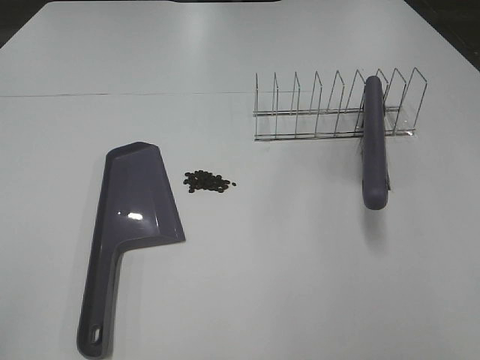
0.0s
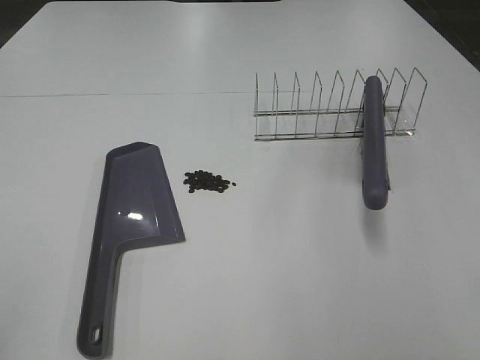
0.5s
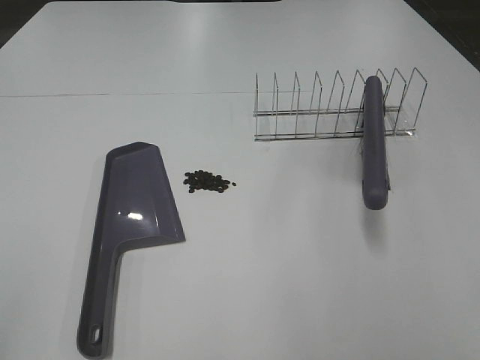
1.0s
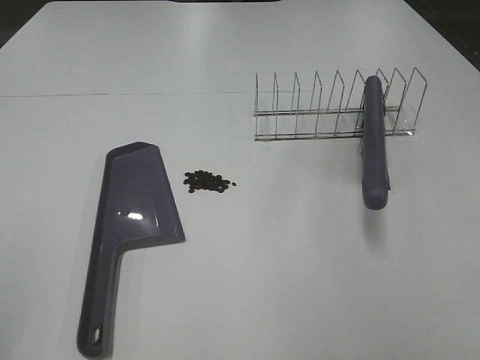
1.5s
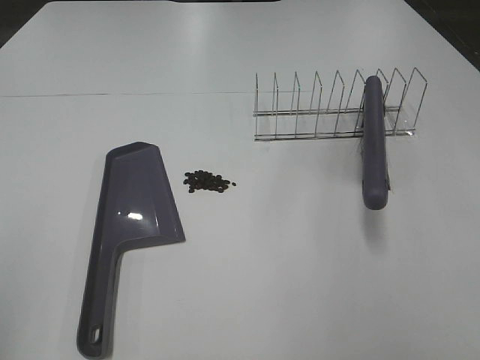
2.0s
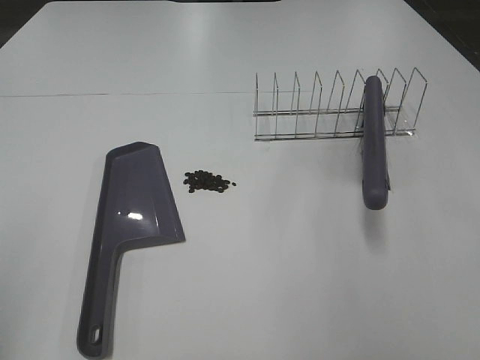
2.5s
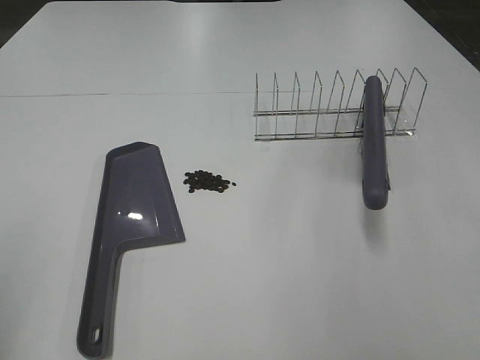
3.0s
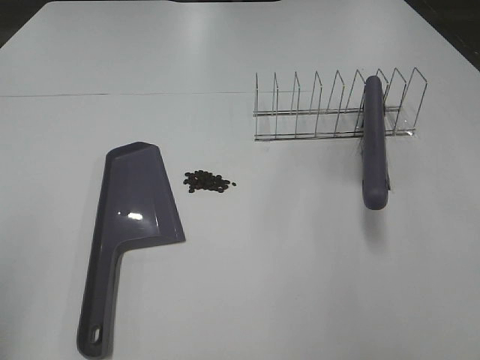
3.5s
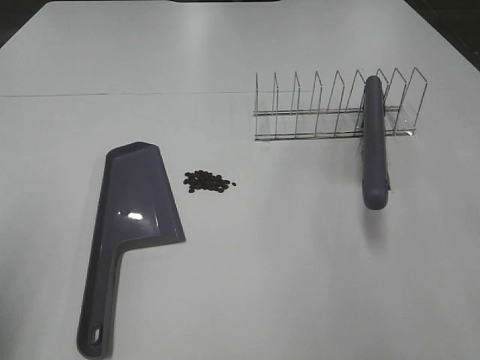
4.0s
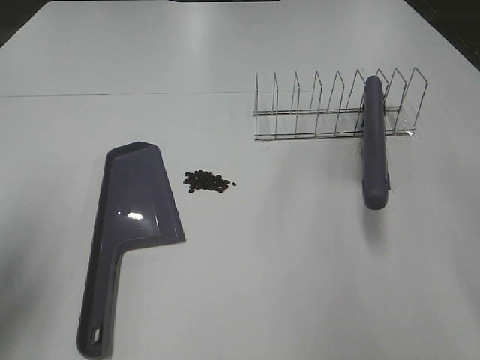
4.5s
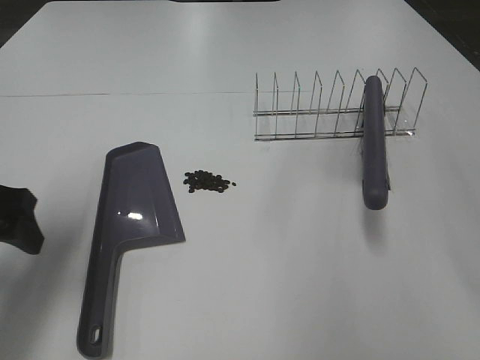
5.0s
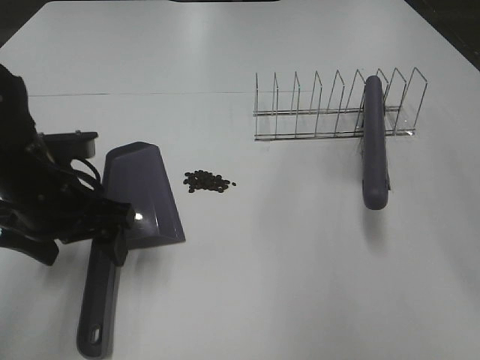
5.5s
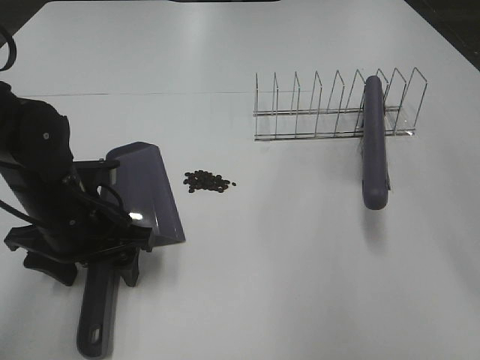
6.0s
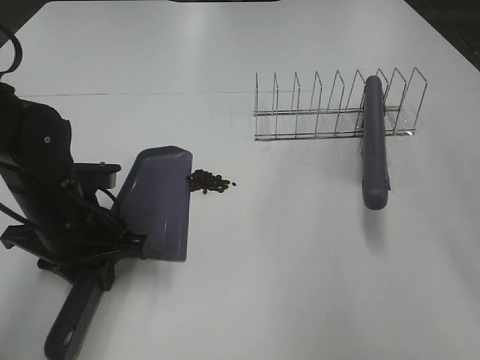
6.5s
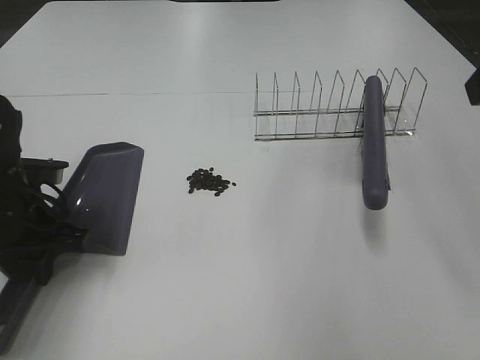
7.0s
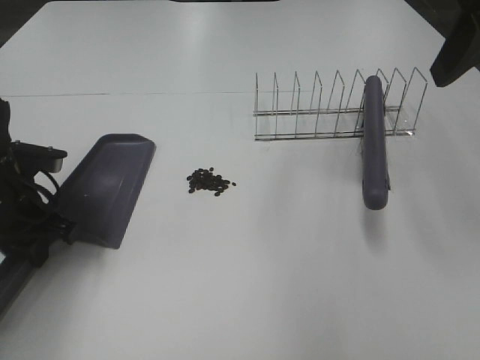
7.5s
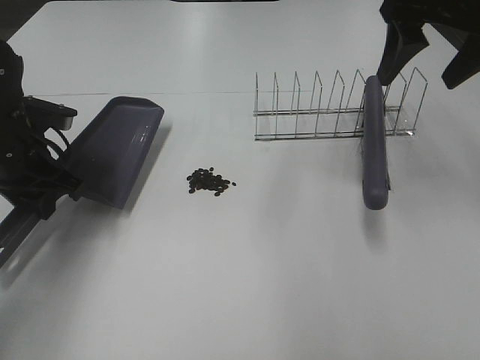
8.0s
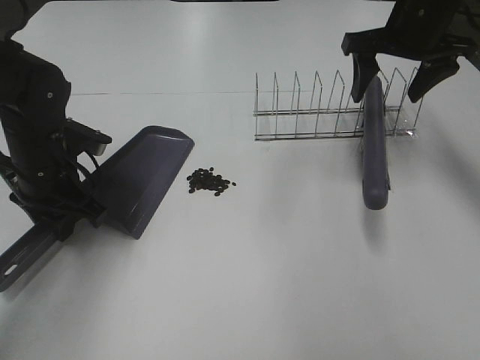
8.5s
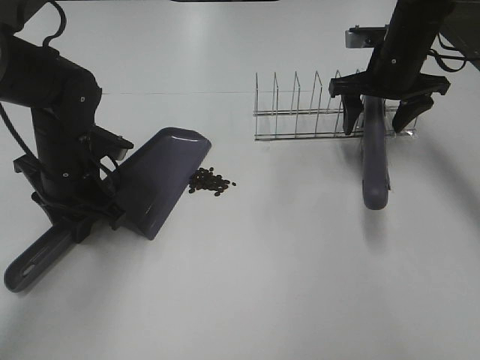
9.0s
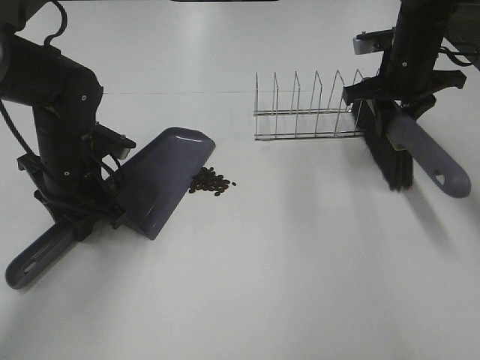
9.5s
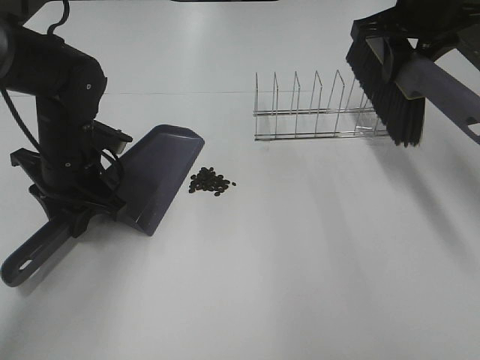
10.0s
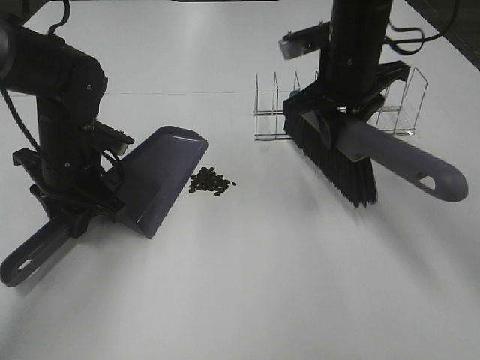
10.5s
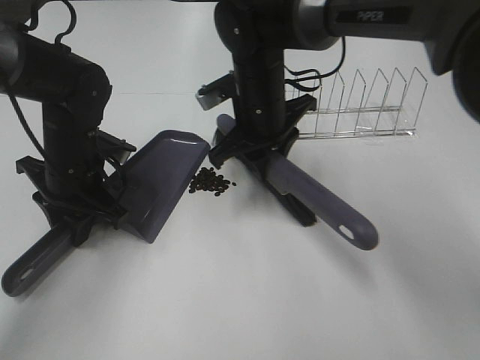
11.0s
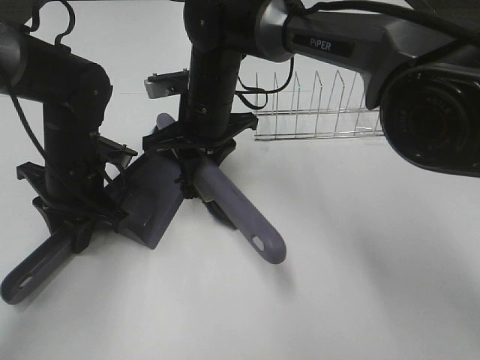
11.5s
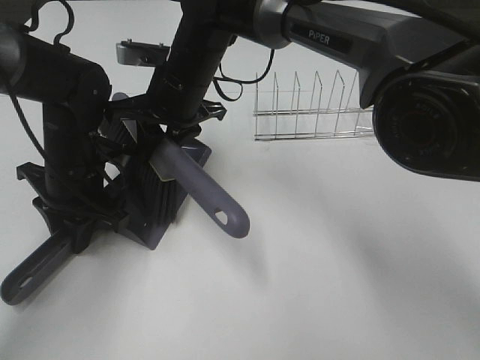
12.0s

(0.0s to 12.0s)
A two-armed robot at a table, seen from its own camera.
Task of the whole recording: Sweep Coffee Bean.
Step, 0.0s - 6.5s: Left hand: grab the dustpan.
Step, 3.5s - 9.0s: Right hand:grab the broom.
Step, 7.0s - 9.0s: Left hand: move the dustpan to the left side of the coffee beans.
Step, 9.5s - 12.0s: Right hand:sweep the coffee beans into the dustpan.
4.0s - 6.0s: The left gripper shifts approximately 25 cm to the right, downward and forward.
6.0s - 8.0s: The right gripper heads forward, covering approximately 15 cm; the left gripper goes approximately 10 cm forward and to the left, and closes its fingers.
8.0s - 10.0s: The left gripper travels to the right by some 5 cm. Meanwhile the right gripper is displaced forward by approximately 5 cm, reaches about 15 cm downward, then returns, and closes its fingers.
10.0s - 12.0s: The right gripper goes some 25 cm to the left.

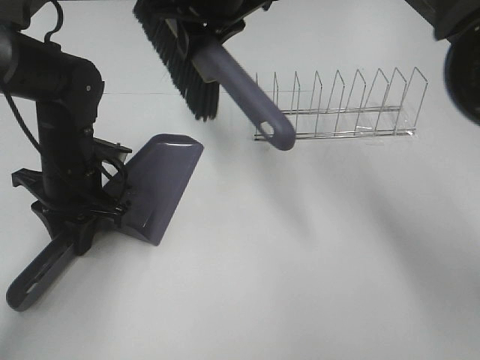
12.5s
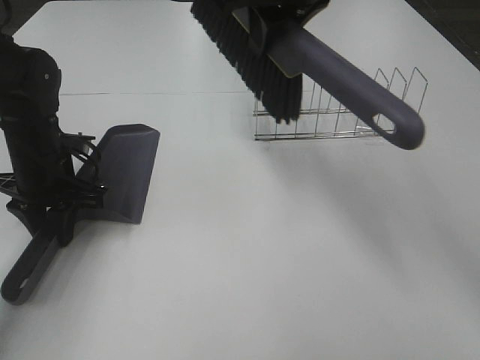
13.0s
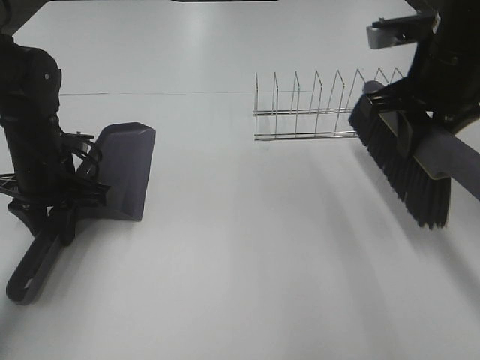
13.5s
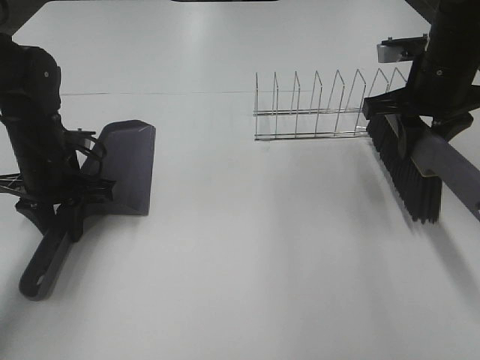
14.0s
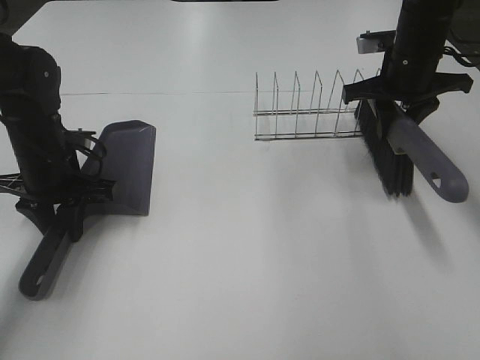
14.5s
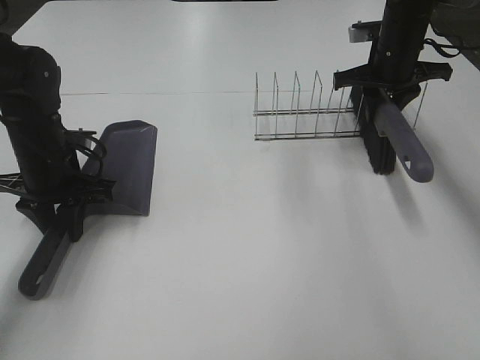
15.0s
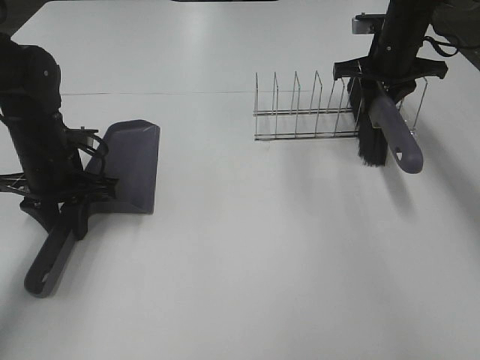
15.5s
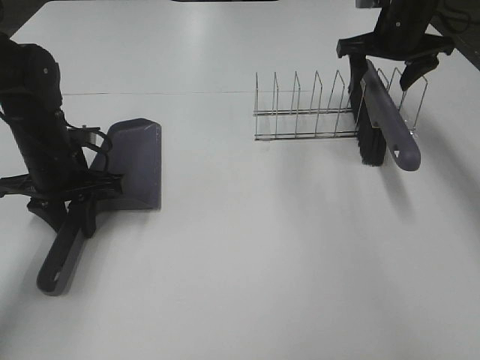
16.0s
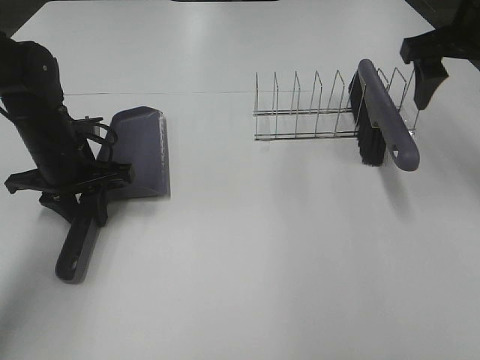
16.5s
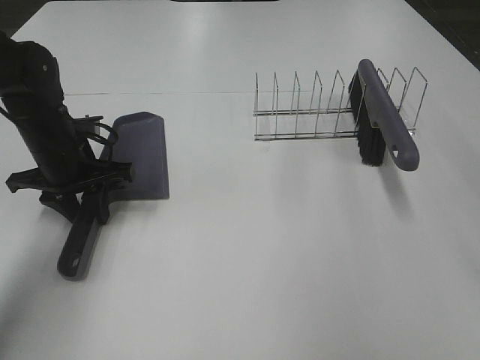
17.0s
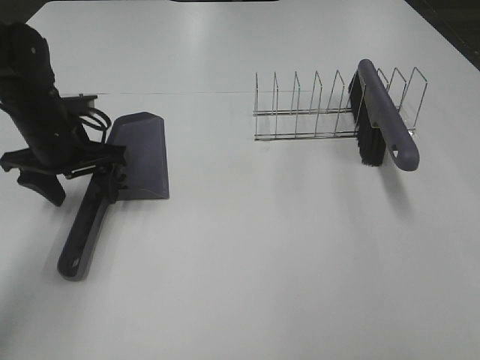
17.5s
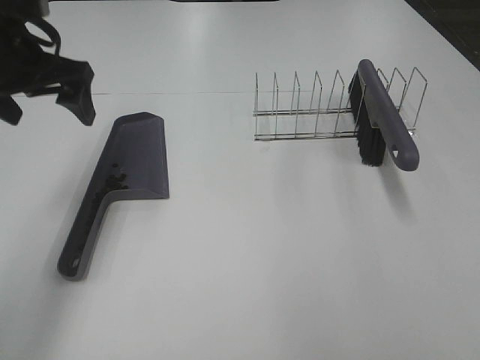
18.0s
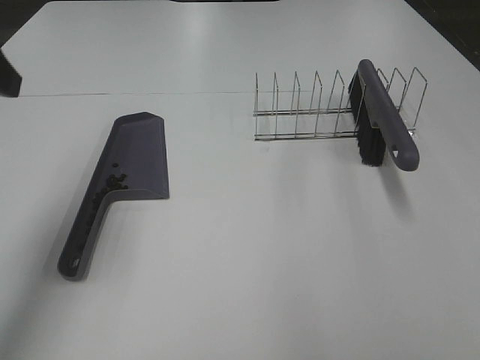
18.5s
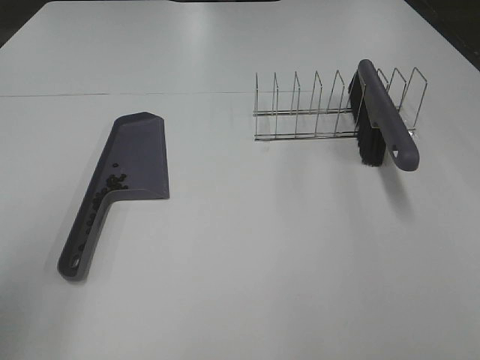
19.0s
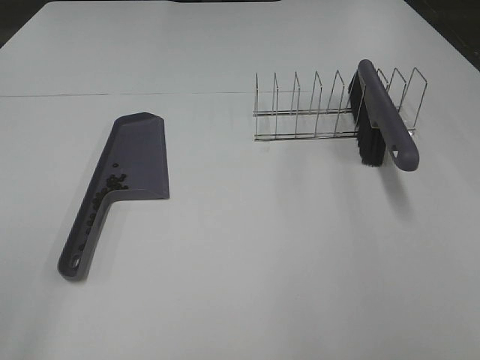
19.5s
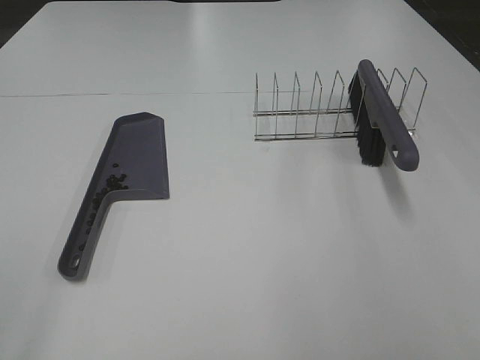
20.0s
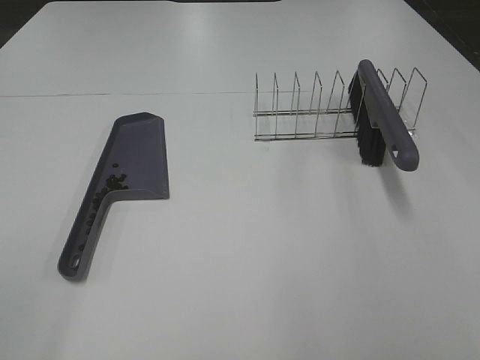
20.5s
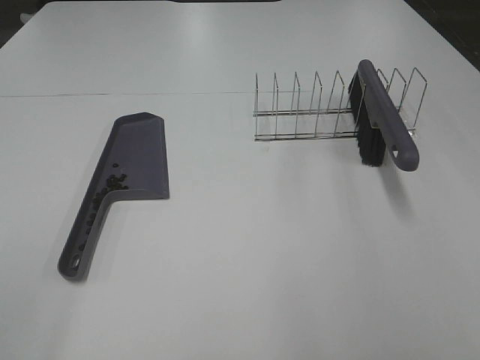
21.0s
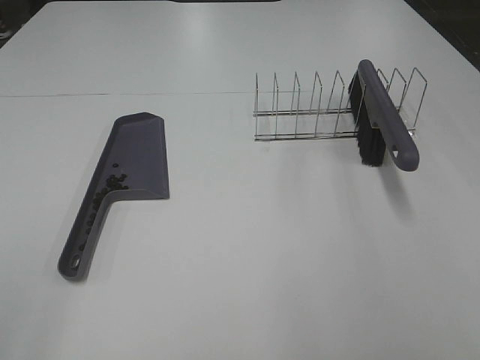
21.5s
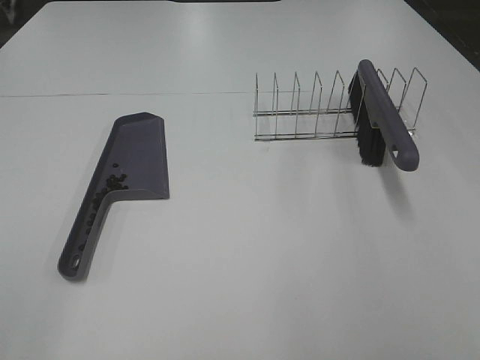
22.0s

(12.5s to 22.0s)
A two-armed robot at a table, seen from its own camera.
Task of the whole recording: Sweep Coffee Bean.
Step, 12.5s - 15.5s: Right hand:place the broom on the rack.
12.5s - 14.5s: The right gripper travels to the right and downward by approximately 25 cm.
14.5s - 16.5s: The right gripper travels upward and backward by roughly 10 cm, and opens up.
16.5s - 18.0s: The right gripper moves backward, about 35 cm; the left gripper travels upward by approximately 15 cm, and opens up.
18.0s - 20.0s: The left gripper travels backward by approximately 35 cm.

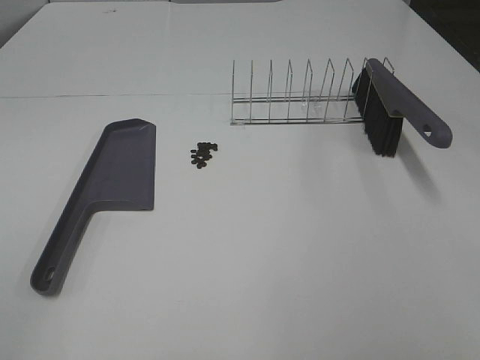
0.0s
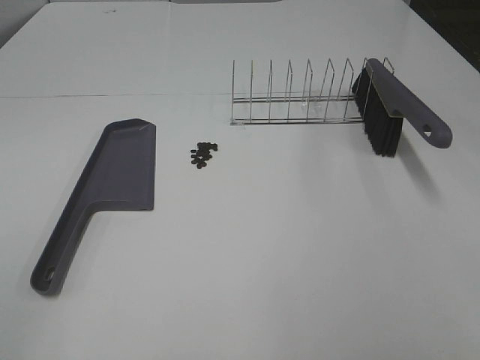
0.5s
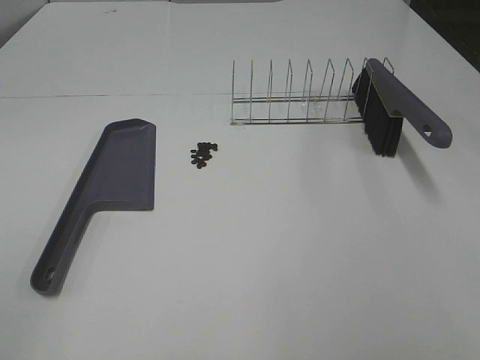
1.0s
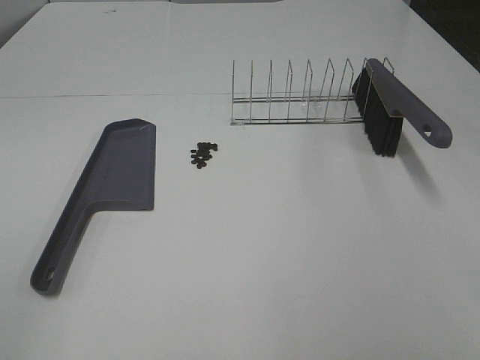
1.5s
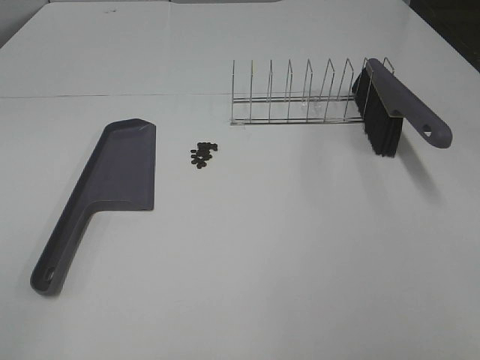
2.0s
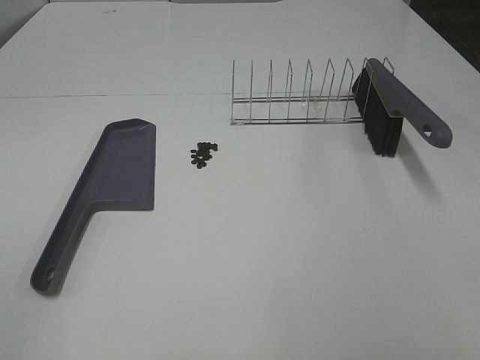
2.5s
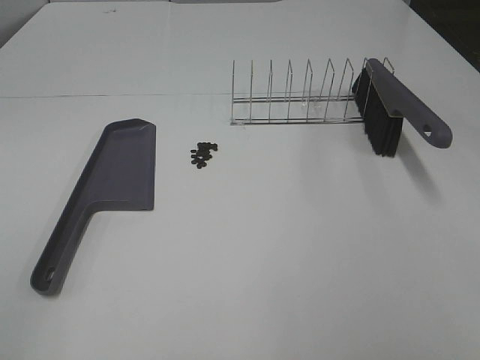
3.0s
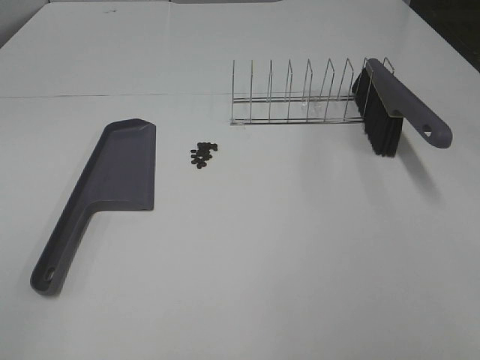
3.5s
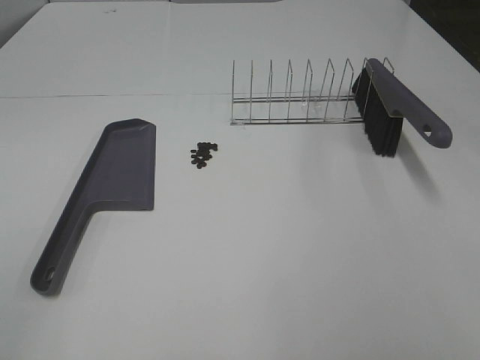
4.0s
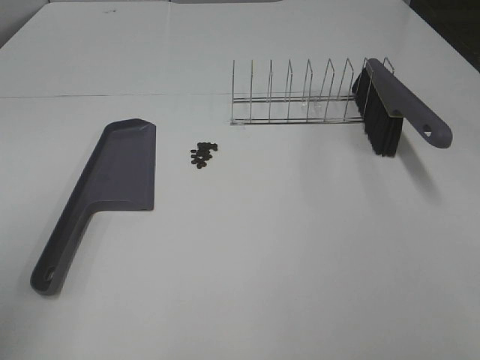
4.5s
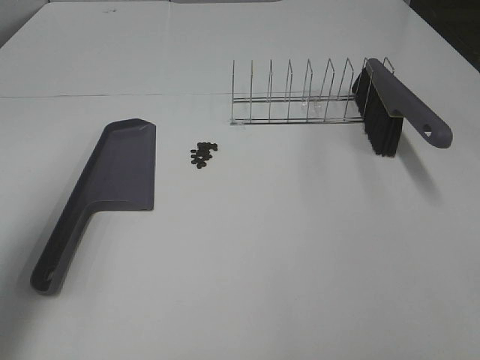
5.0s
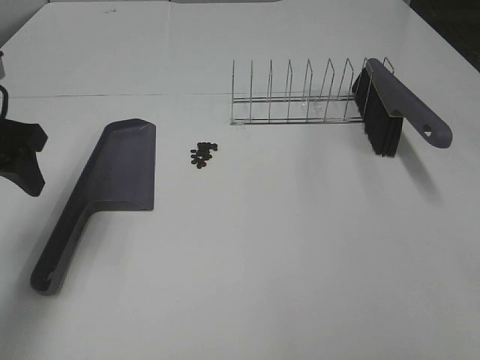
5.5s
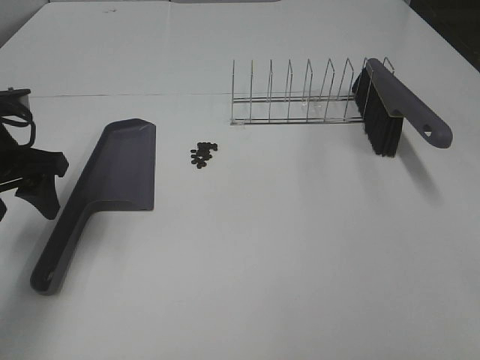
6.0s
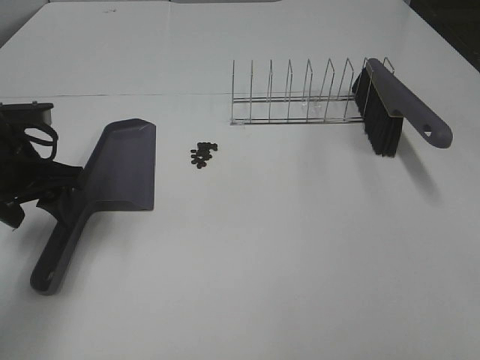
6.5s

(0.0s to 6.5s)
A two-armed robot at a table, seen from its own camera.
Task of the whole recording: Sweep Coffee Bean.
0.0s - 2.0s: The two grippers keep their place.
4.5s - 6.5s: The left gripper moves forward and downward, some 25 cm.
